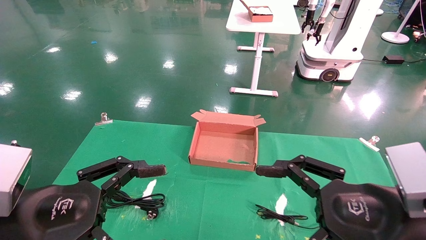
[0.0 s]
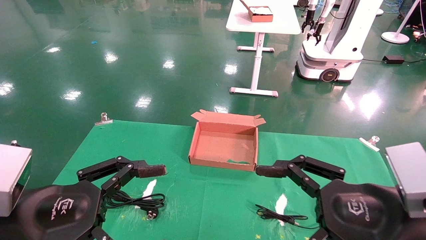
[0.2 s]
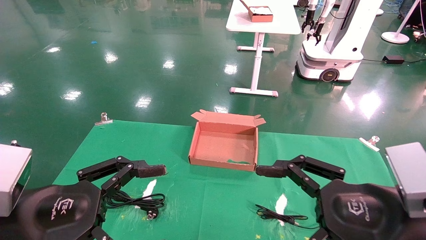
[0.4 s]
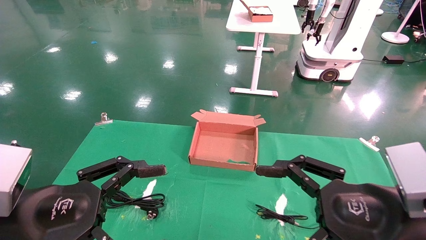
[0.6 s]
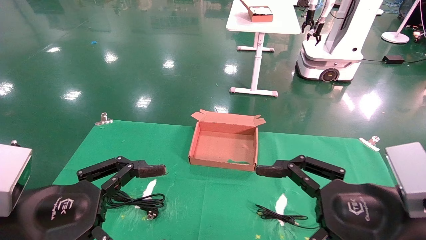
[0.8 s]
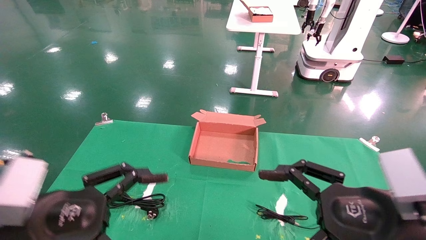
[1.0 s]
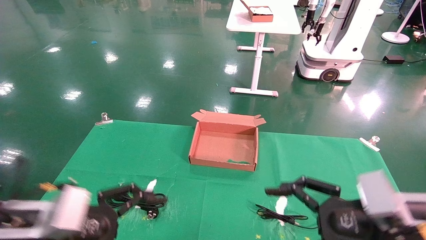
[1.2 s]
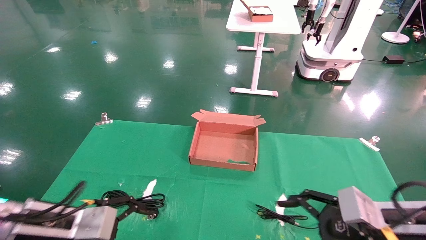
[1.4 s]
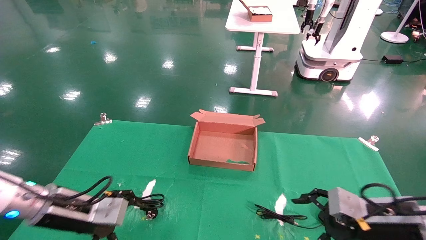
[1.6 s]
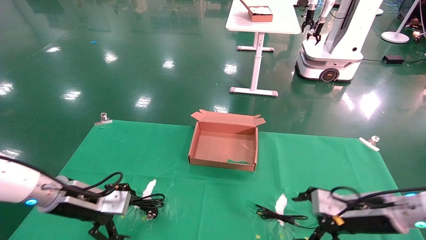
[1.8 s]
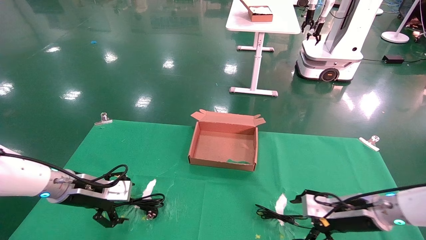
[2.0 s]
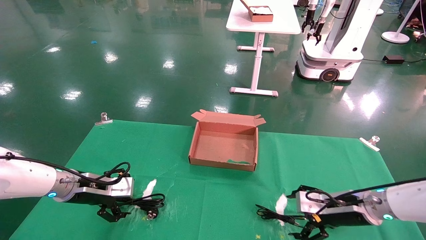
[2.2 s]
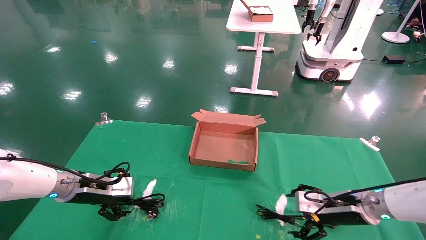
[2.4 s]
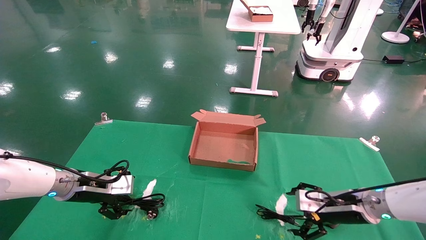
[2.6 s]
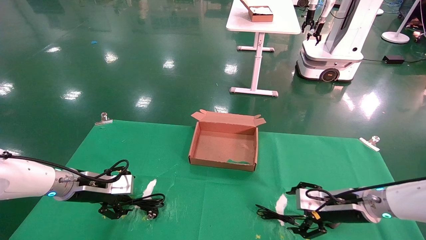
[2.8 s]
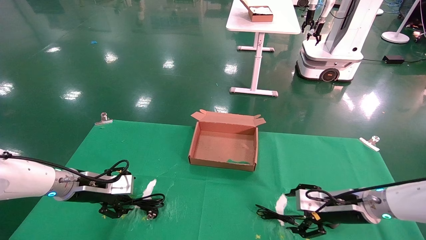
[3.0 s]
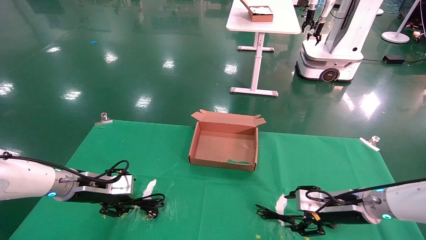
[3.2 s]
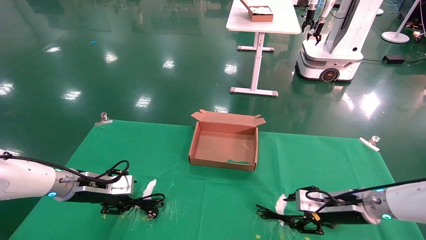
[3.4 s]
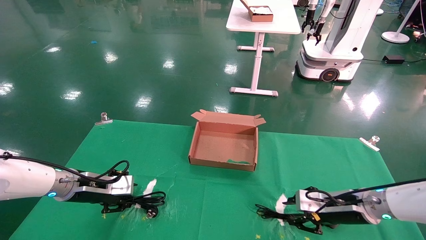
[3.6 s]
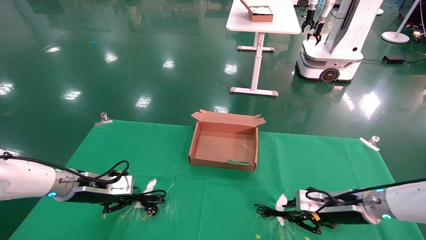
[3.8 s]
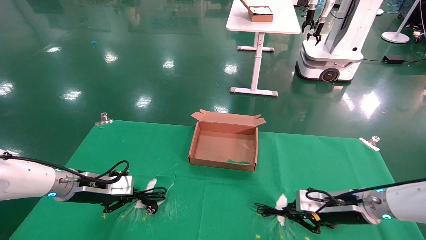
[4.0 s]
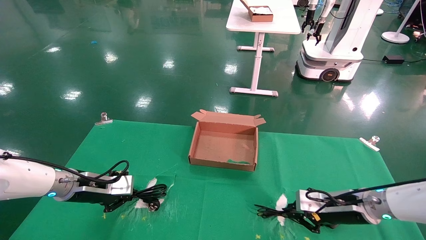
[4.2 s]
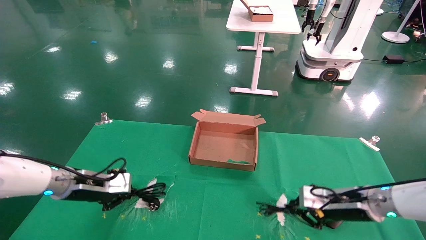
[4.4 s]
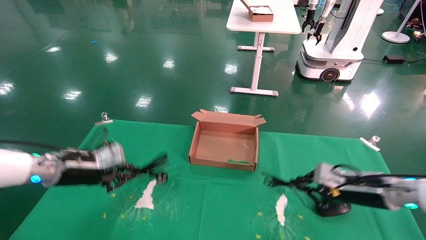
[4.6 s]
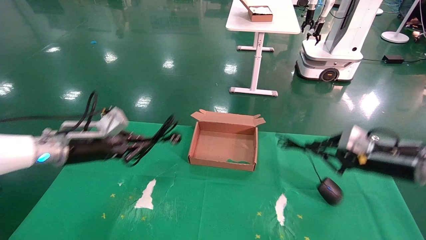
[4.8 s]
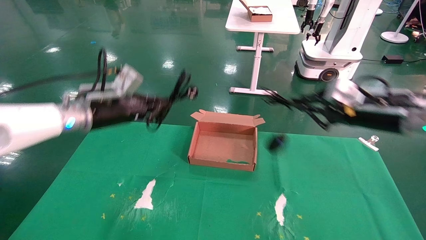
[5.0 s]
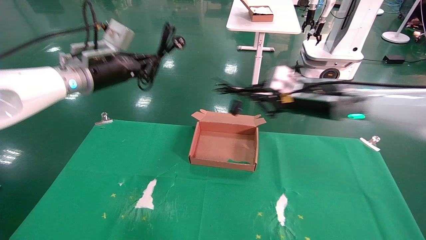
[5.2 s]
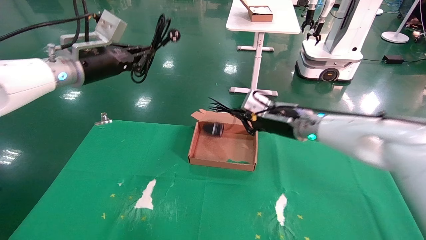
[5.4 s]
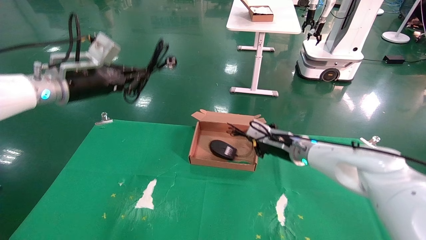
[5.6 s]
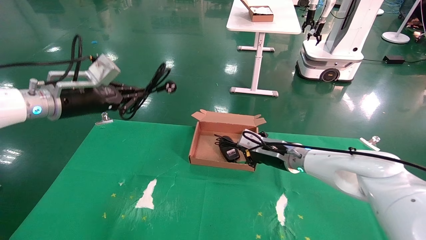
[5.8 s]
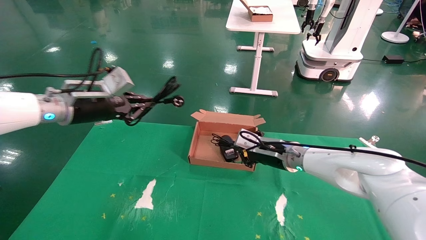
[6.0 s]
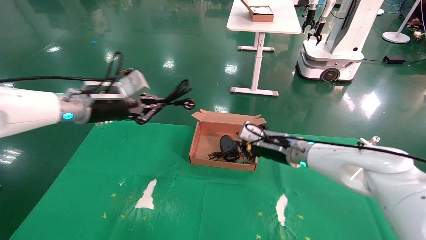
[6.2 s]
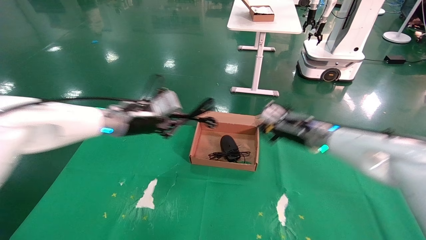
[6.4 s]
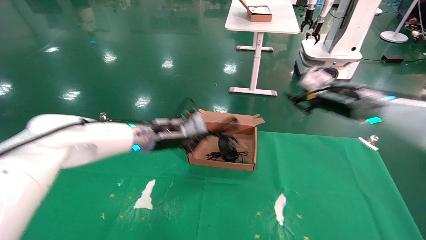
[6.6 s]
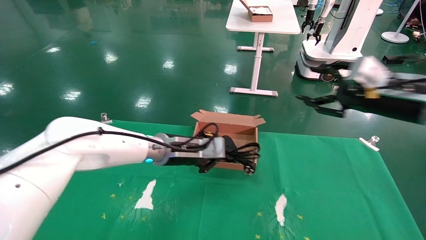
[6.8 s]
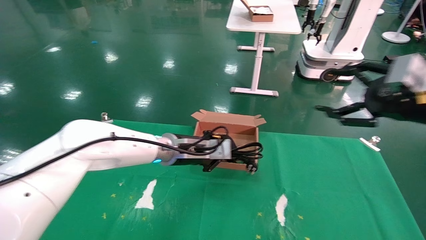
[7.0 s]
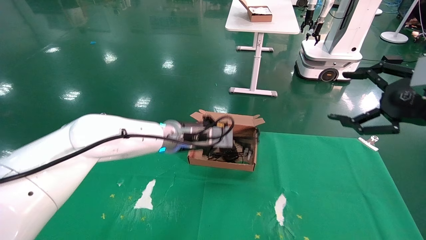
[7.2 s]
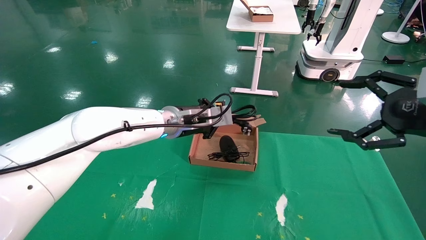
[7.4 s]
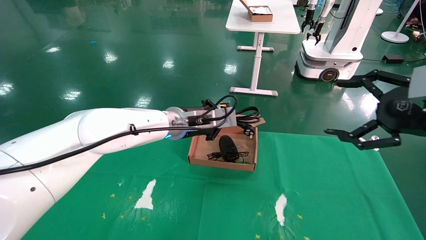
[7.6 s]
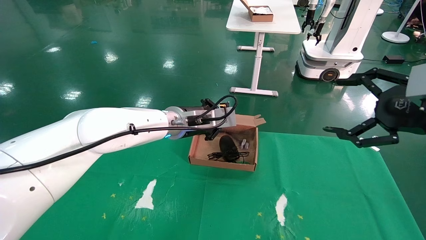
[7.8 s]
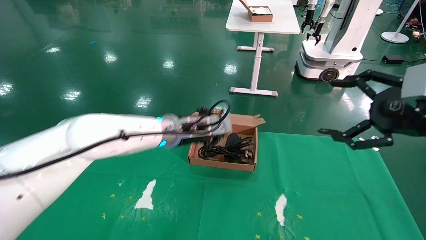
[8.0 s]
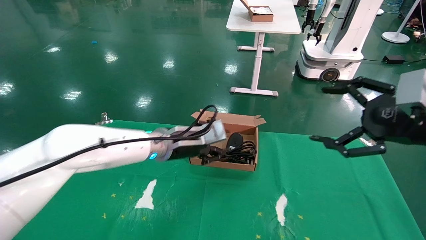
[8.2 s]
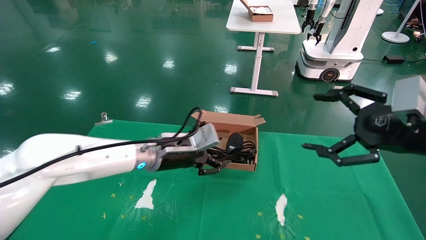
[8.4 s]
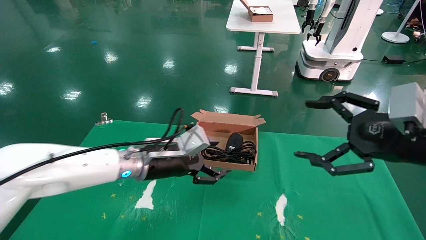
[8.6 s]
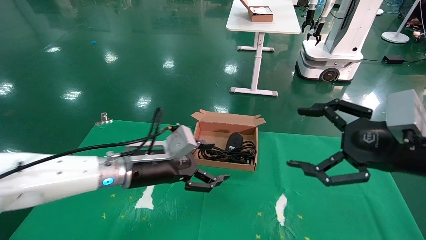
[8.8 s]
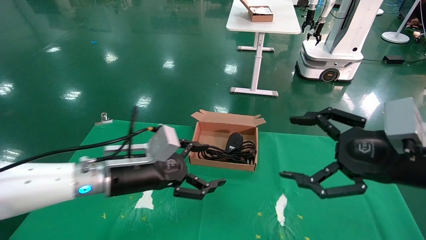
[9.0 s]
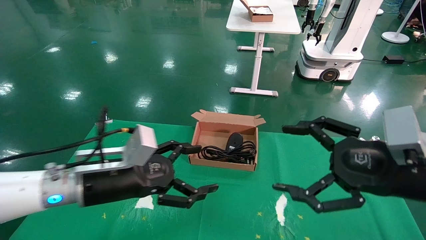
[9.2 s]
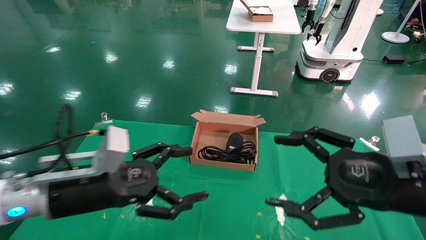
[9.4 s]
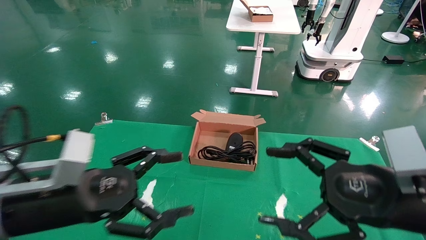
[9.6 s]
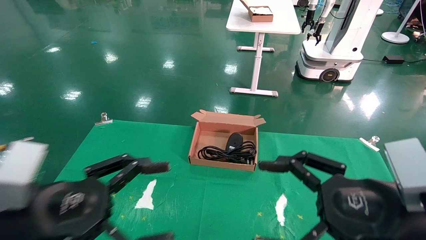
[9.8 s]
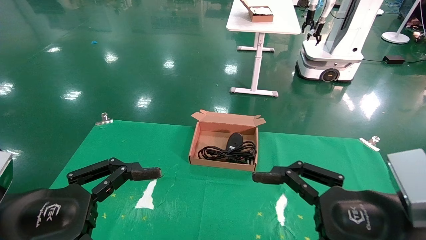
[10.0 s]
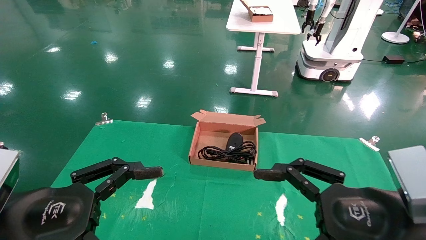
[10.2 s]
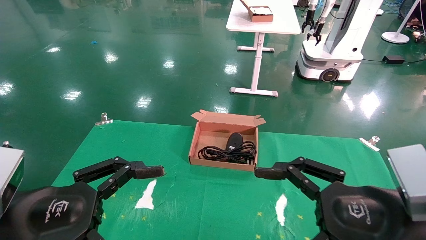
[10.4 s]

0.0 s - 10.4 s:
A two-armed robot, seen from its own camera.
Step, 1.2 s - 4.4 s: Grab and lift both the mouse and power cord from the accessory packaging area at the same time.
Step, 4.6 s - 8.0 s: Place the mouse and power cord into the box.
0.0 s - 1.4 s: The grippers both shift forward and downward by roughly 10 cm.
1.4 s - 3.0 s: The left gripper moves forward, about 15 cm, while the right gripper heads forward and downward, covering approximately 15 cm.
3.0 s - 4.4 s: The right gripper closes up. Meanwhile the left gripper closes up.
4.4 s - 6.0 s: The left gripper travels upward by approximately 15 cm. The right gripper goes approximately 20 cm to the left, forward and upward.
6.0 s - 7.4 s: The left gripper goes some 20 cm to the right. Meanwhile the right gripper is displaced to the right, backward and upward by about 35 cm, and opens up.
7.4 s - 9.0 s: The left gripper goes some 15 cm backward, to the left and downward, and opens. The right gripper shifts roughly 10 cm to the left and downward.
9.0 s - 10.4 s: The left gripper is displaced backward and to the left by roughly 20 cm. Meanwhile the right gripper shifts roughly 10 cm backward and to the left.

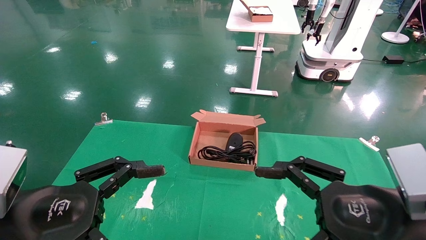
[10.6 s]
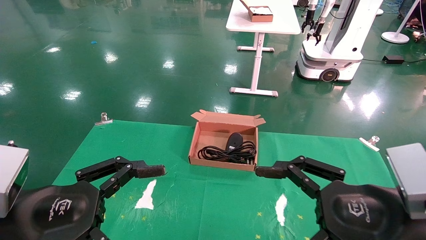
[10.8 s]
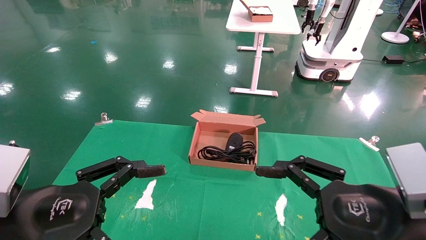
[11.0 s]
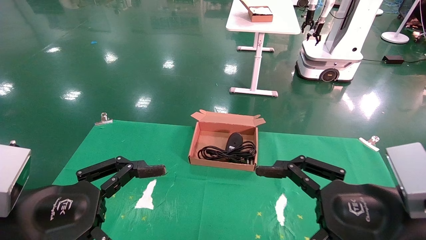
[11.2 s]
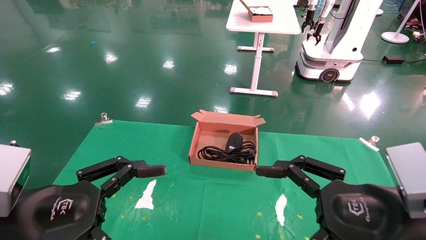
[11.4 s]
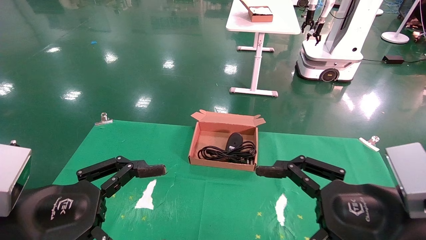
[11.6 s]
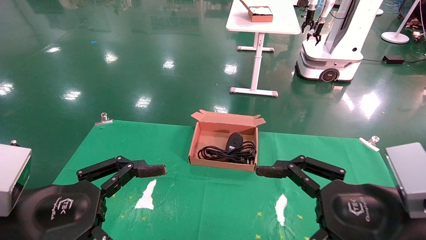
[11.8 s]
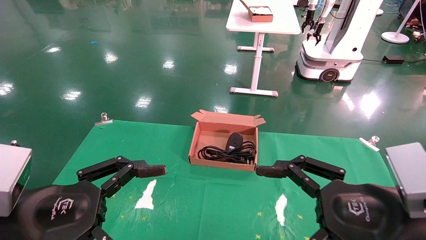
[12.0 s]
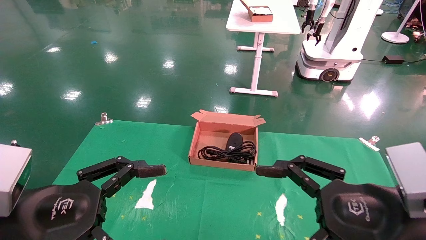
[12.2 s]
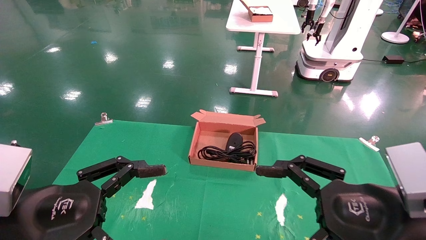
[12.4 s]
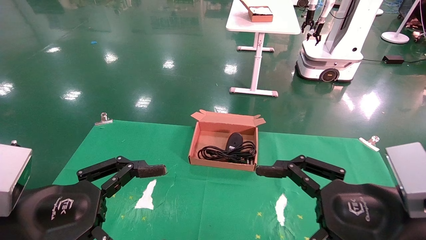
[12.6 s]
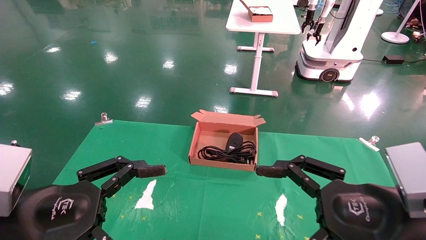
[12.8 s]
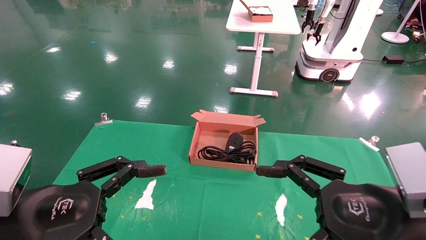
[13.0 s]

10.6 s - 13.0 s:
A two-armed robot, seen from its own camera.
10.6 s - 13.0 s: Both grippers stay about where they are.

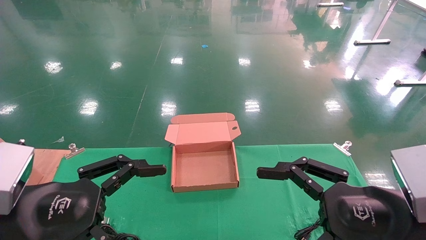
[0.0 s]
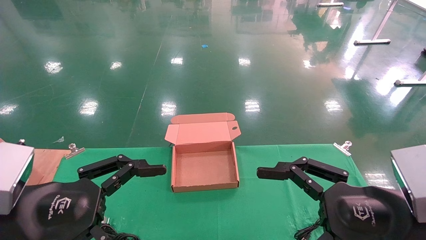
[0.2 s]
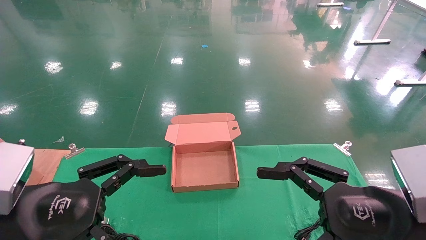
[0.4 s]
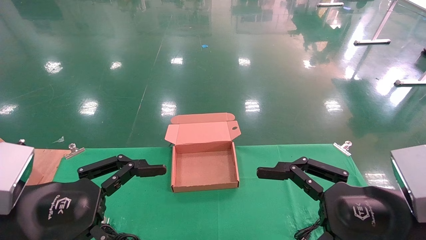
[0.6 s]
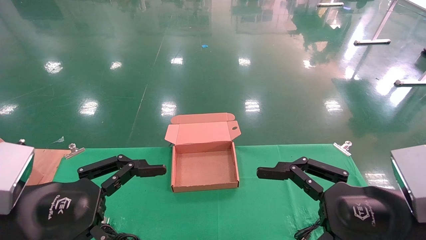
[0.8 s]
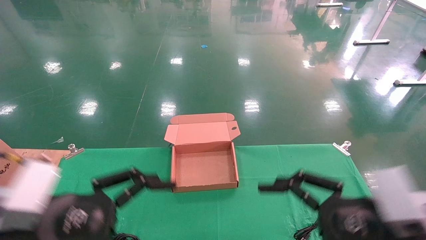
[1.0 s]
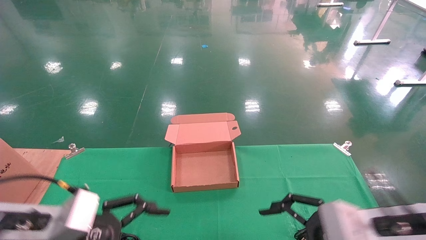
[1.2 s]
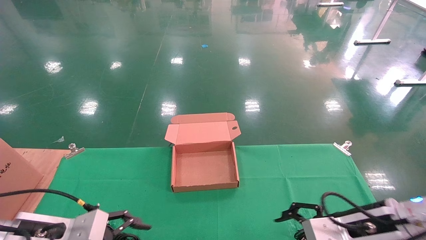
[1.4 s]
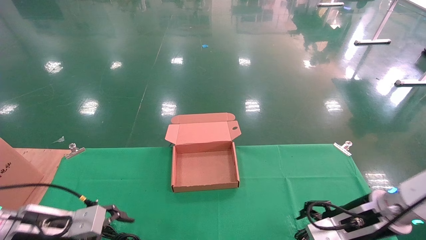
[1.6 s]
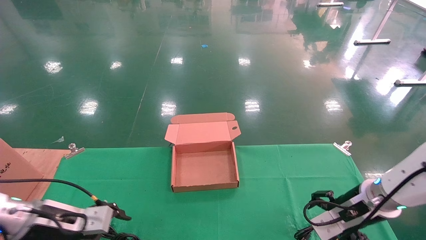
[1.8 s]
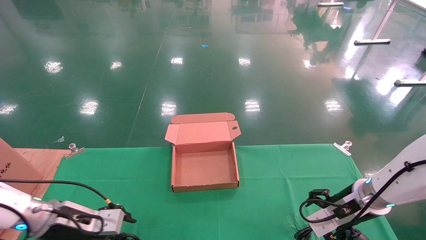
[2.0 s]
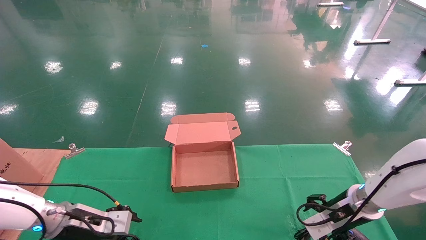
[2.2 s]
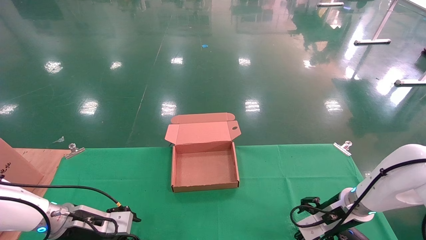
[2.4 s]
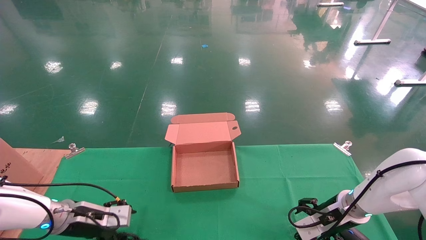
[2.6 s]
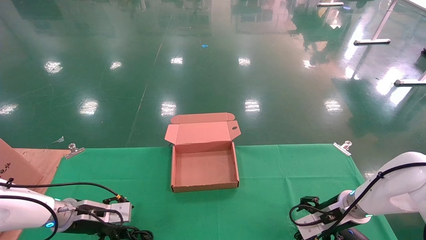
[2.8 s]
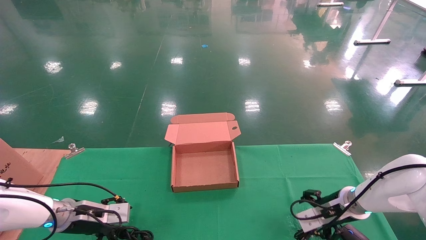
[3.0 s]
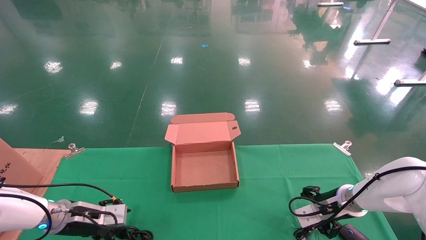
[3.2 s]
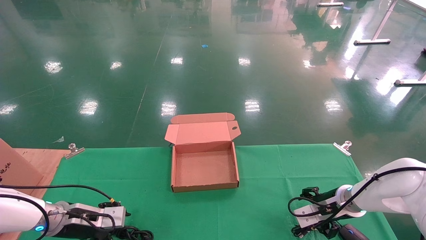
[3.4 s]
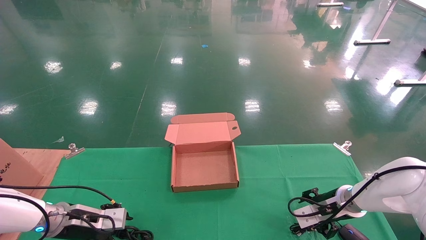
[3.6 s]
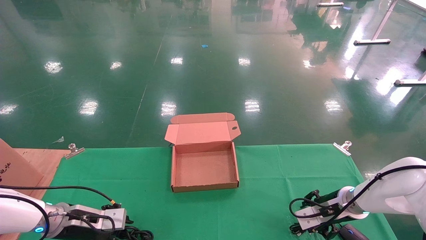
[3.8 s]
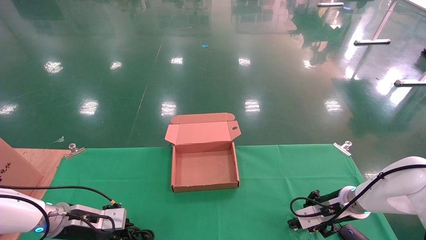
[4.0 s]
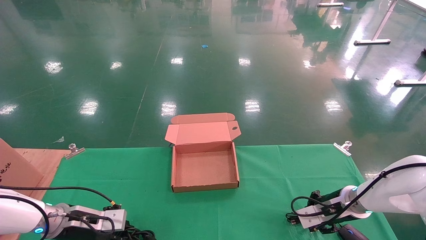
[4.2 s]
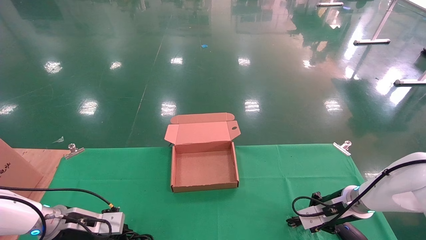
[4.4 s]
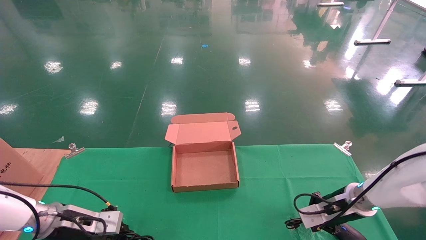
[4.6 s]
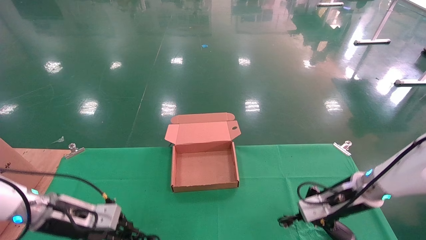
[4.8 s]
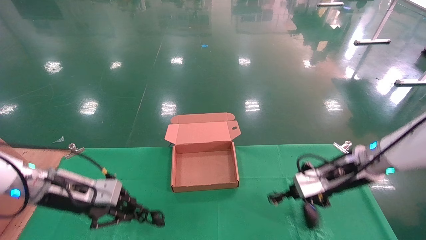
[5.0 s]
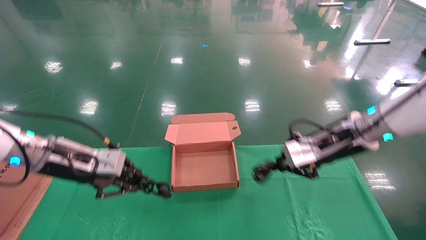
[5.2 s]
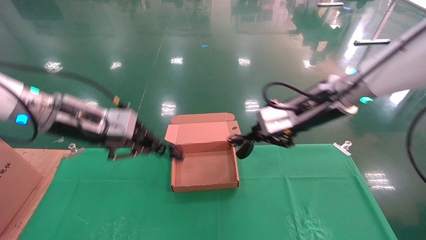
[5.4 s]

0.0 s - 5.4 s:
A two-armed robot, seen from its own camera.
0.0 s - 1.4 s: The right gripper travels forward and downward by some 15 cm, while the left gripper travels downward and forward by about 10 cm.
1.4 s - 2.8 s: The two grippers go some 15 cm forward and downward.
2.8 s - 4.0 s: The right gripper closes up, while the left gripper closes its fingers.
4.0 s - 5.4 s: The right gripper is displaced upward and to the left by about 25 cm, and closes its fingers; the left gripper heads upward, covering roughly 25 cm.
